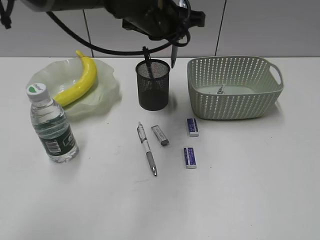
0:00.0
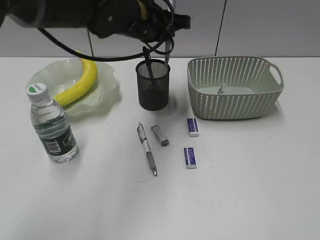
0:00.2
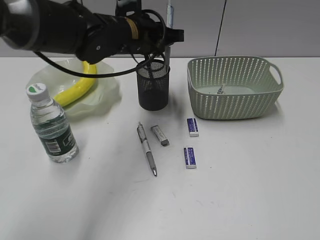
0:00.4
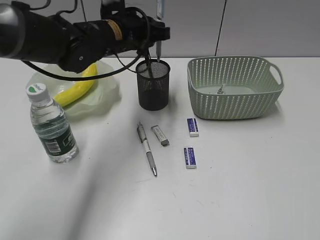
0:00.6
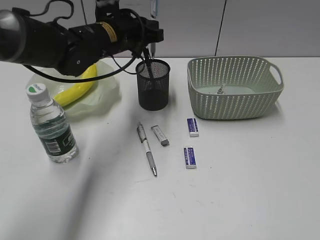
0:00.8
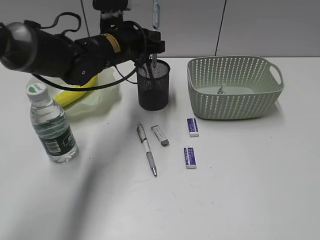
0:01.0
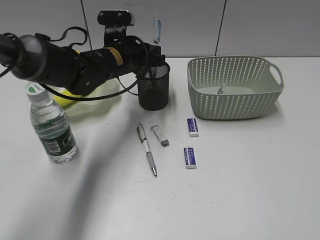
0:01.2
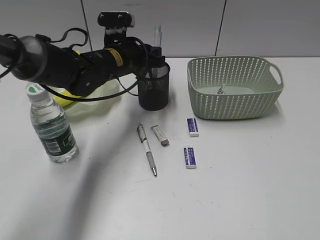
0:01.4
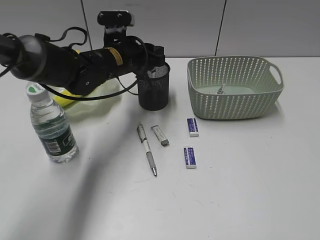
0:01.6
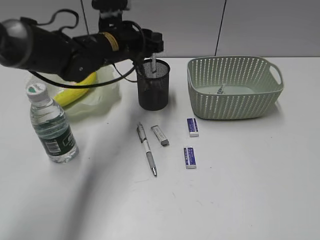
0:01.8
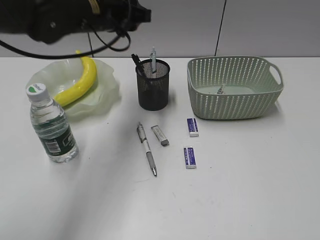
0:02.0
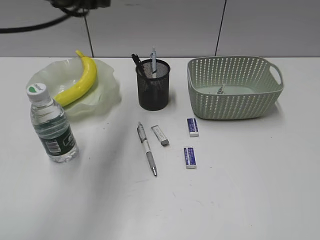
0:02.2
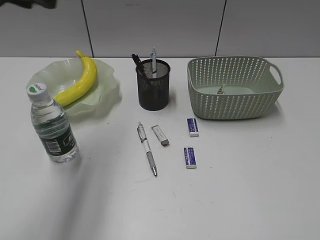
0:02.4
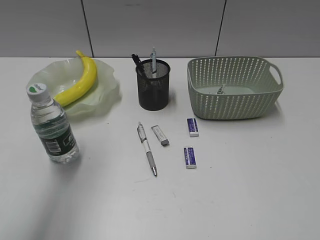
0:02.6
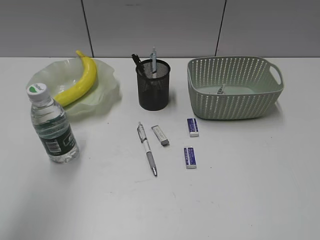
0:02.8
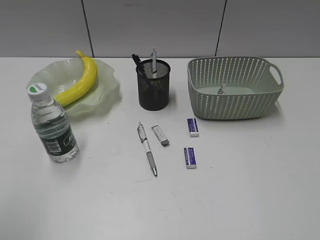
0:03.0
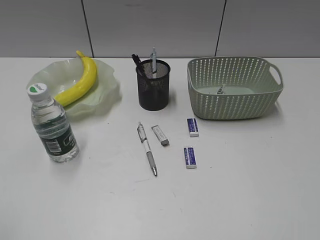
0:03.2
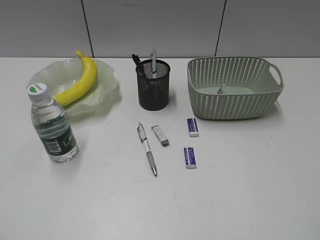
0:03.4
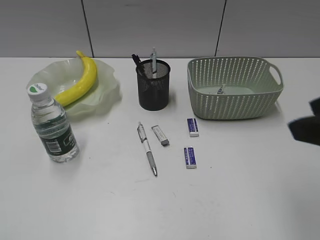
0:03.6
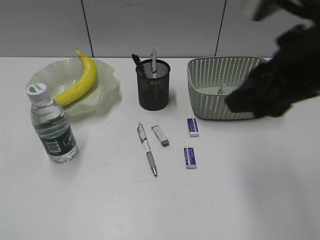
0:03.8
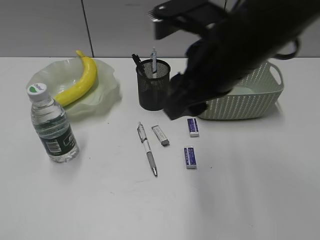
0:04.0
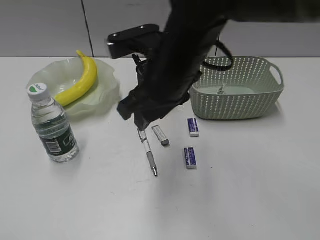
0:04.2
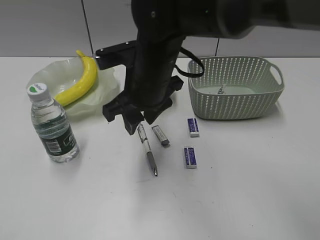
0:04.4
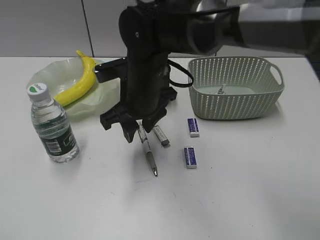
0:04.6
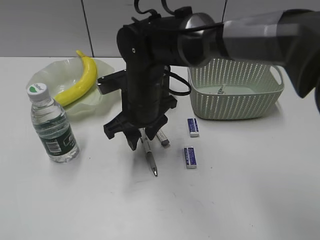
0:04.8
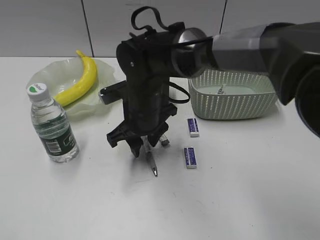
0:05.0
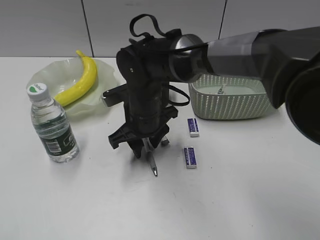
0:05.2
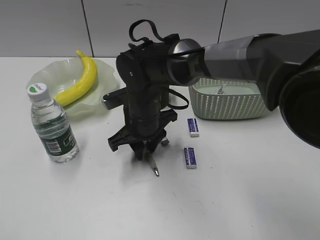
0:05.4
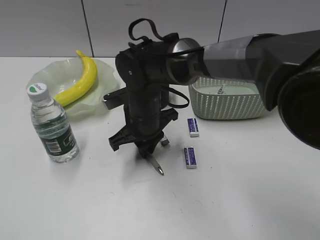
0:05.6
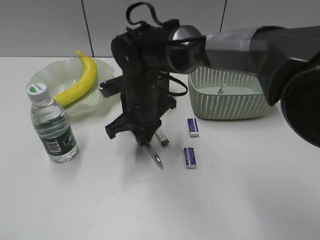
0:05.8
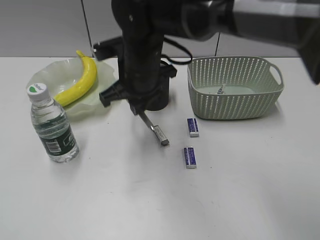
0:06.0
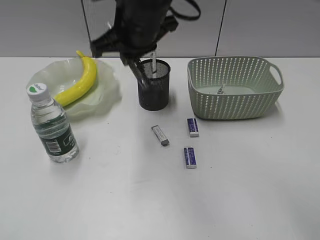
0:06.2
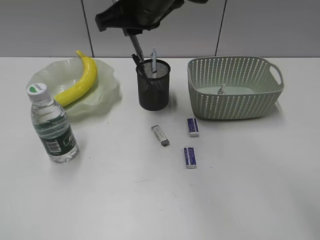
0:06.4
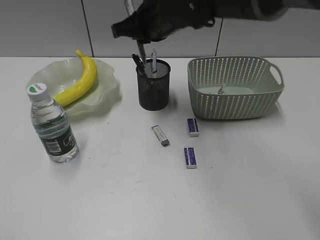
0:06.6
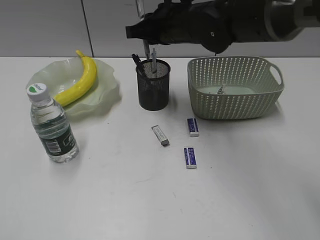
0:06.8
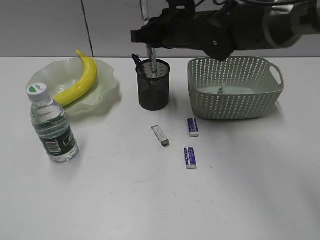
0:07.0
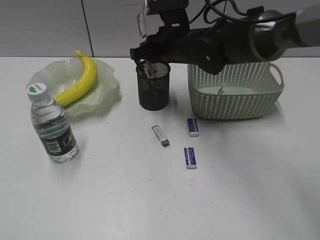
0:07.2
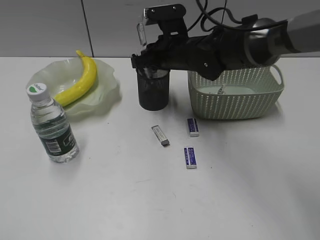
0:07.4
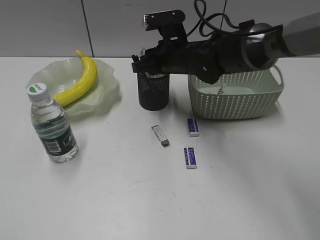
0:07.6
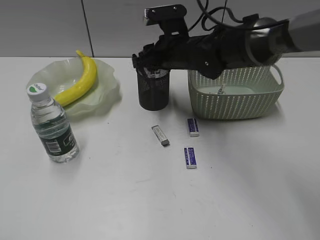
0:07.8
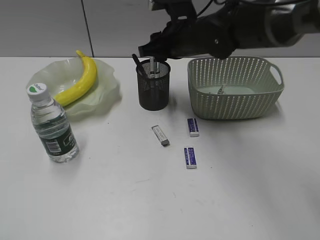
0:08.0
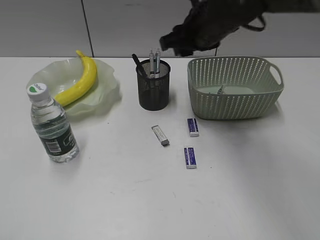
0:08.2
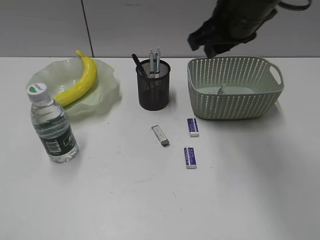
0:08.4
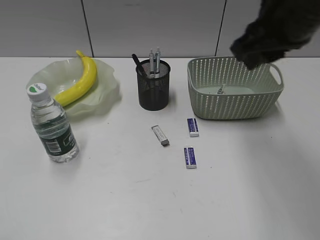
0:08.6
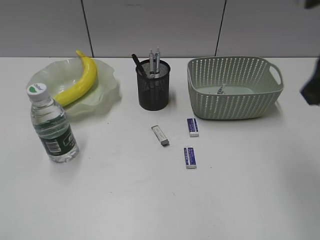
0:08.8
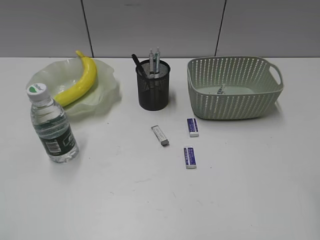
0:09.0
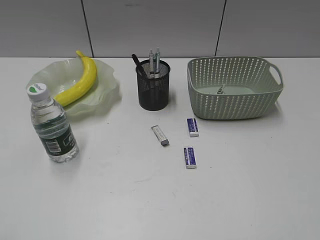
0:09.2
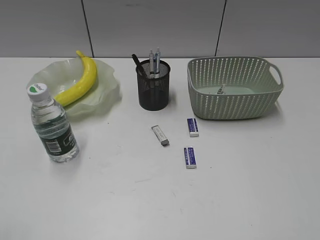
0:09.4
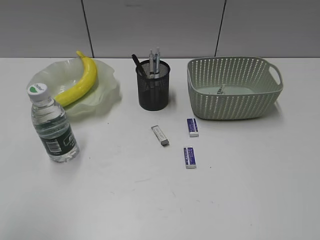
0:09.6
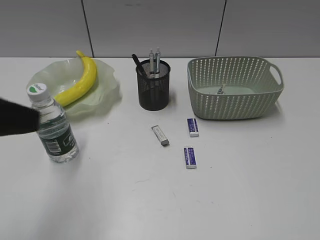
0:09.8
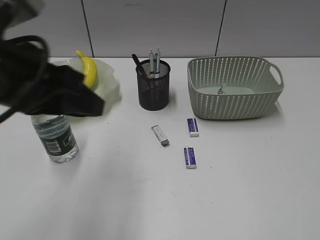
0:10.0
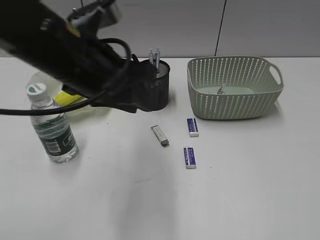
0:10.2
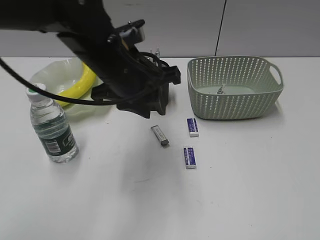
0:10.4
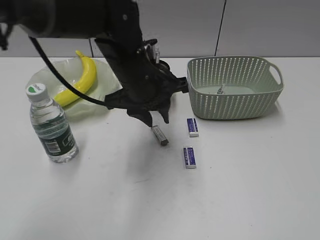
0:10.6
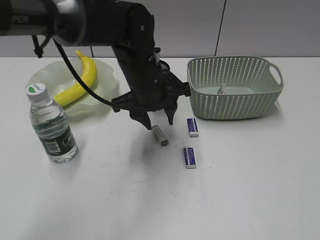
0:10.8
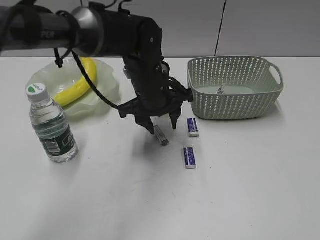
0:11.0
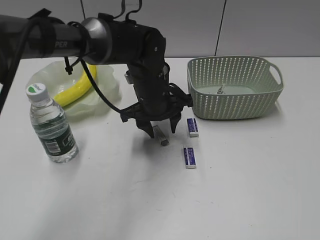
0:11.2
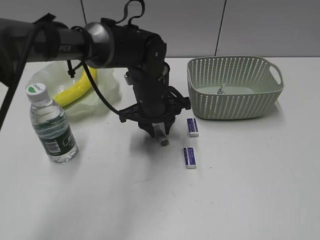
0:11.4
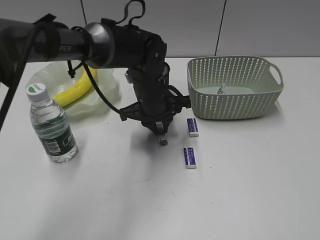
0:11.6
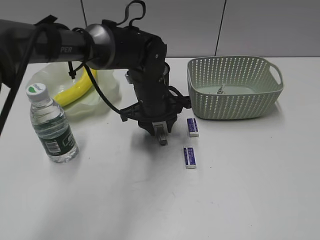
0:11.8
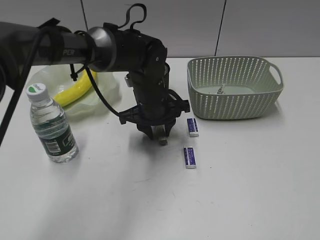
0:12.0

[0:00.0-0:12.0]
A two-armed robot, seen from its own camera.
Step, 0:00.0 to 0:01.6: Place the blue pen in pen holder with left gripper.
Step, 0:01.8 to 0:05.6: Grasp the gray pen with right gripper.
Step, 0:05.8 to 0:07.8: Place the gray pen in pen holder with right gripper.
0:00.0 to 0:01.6: The left gripper shifts about 15 cm downward and to the left, and opens up.
0:01.6 to 0:03.0: The left gripper travels backward, to the left and upward by some 40 cm.
0:03.0 to 0:04.4: The left gripper travels backward and downward by some 10 cm. Meanwhile the right gripper shifts some 40 cm to the left and forward.
0:04.4 to 0:06.0: The right gripper travels downward and back again, roughly 10 cm each way, and closes up.
0:06.0 to 0:07.6: The right gripper goes approximately 10 cm forward and to the right, and goes upward and returns, some 10 cm each way.
0:07.6 to 0:09.0: The right gripper moves backward, to the right and upward, some 40 cm.
0:09.0 to 0:10.4: The right gripper heads backward and to the right, covering approximately 15 cm; the left gripper heads forward and to the right, covering about 40 cm.
0:10.4 to 0:12.0: The left gripper shifts approximately 15 cm downward and forward.

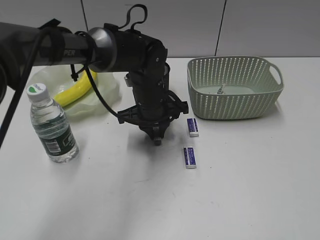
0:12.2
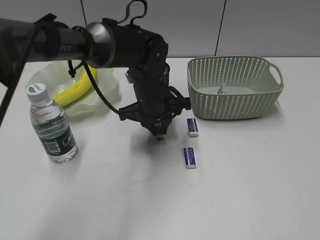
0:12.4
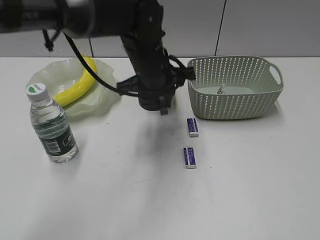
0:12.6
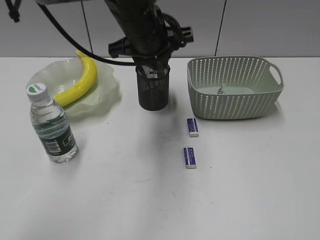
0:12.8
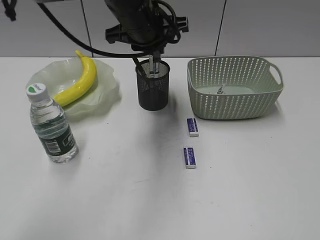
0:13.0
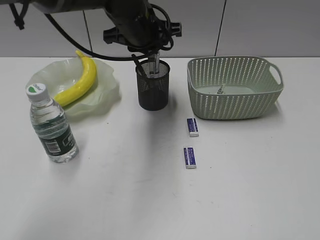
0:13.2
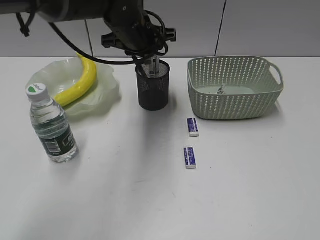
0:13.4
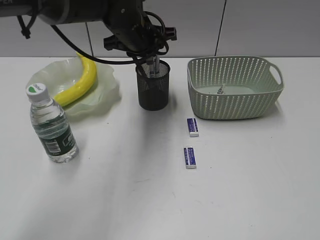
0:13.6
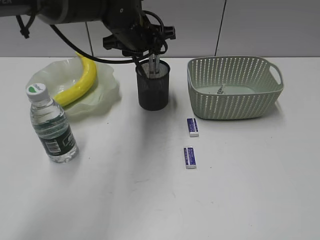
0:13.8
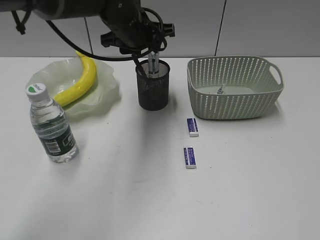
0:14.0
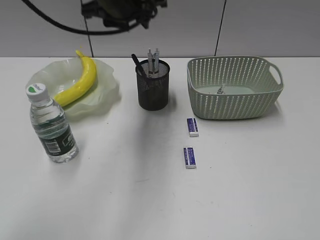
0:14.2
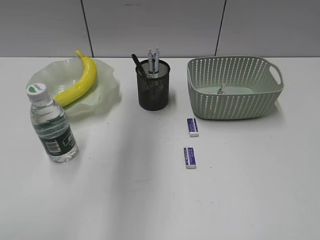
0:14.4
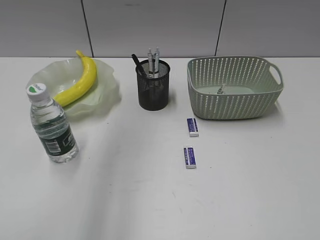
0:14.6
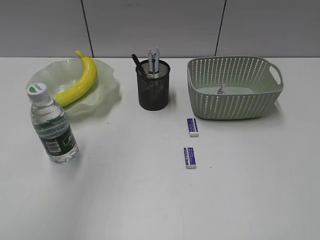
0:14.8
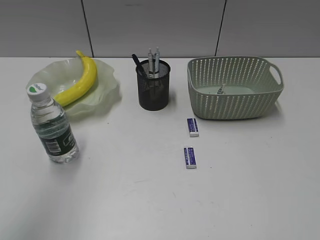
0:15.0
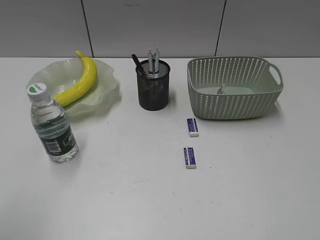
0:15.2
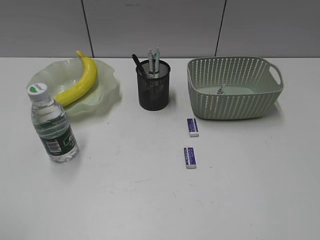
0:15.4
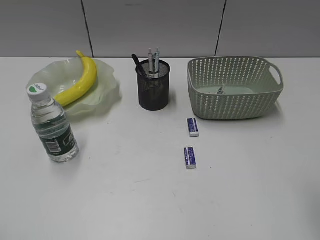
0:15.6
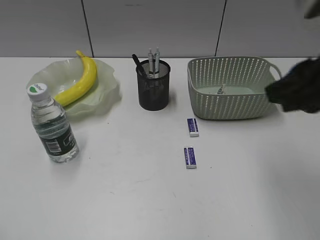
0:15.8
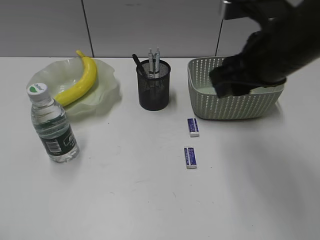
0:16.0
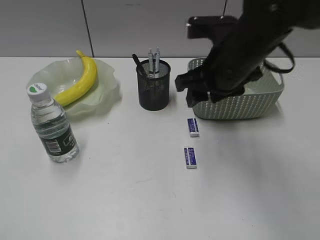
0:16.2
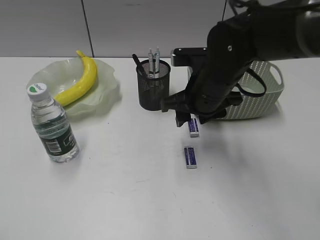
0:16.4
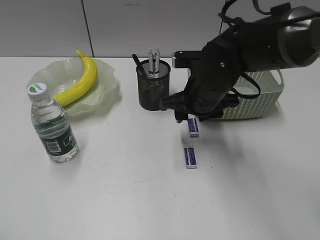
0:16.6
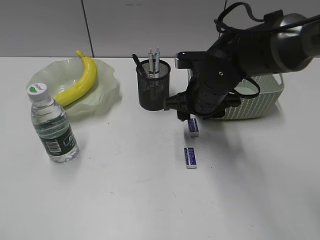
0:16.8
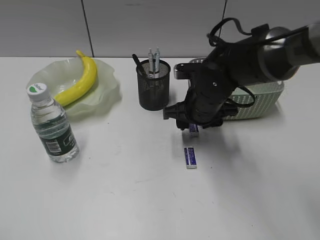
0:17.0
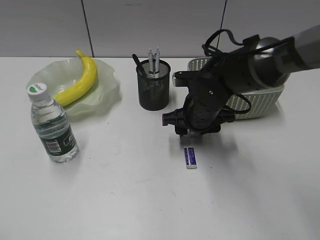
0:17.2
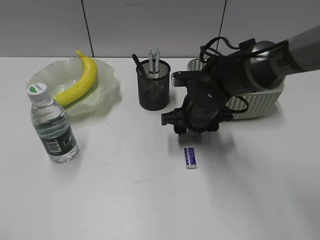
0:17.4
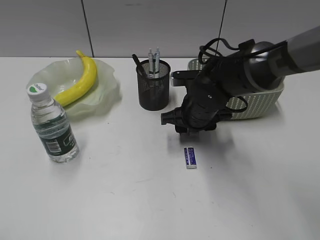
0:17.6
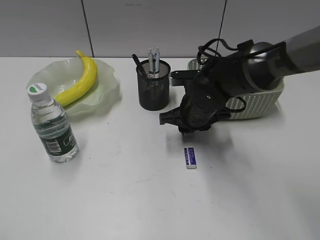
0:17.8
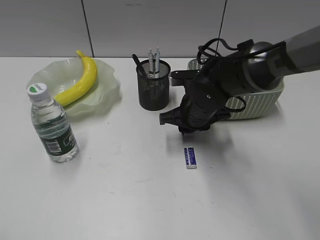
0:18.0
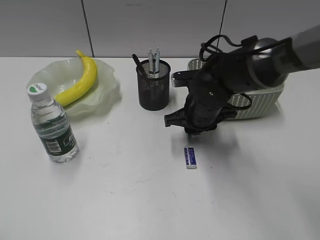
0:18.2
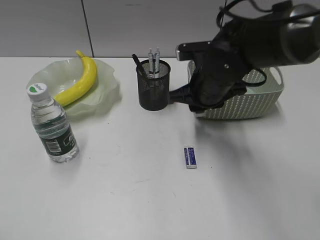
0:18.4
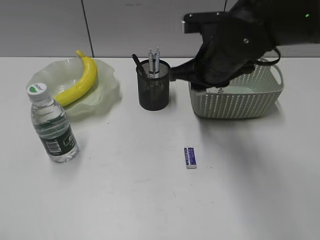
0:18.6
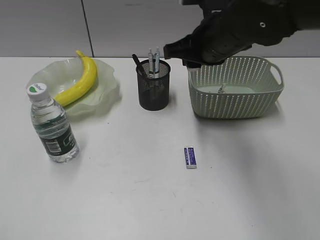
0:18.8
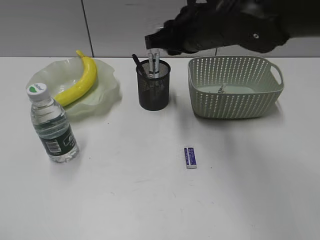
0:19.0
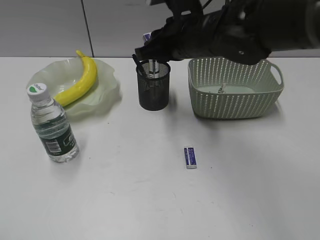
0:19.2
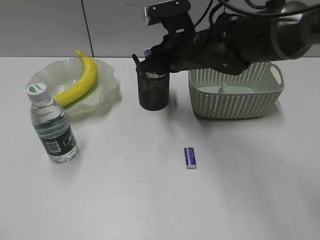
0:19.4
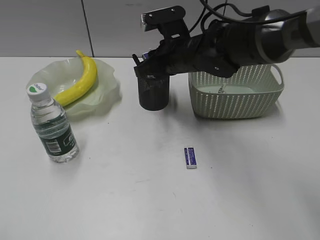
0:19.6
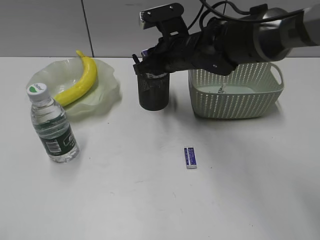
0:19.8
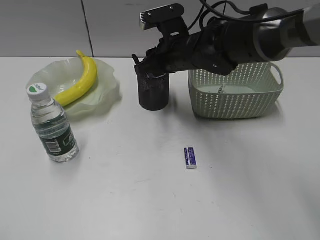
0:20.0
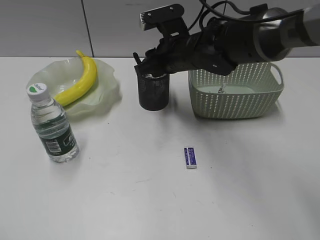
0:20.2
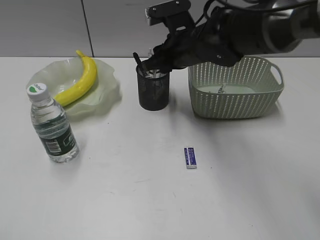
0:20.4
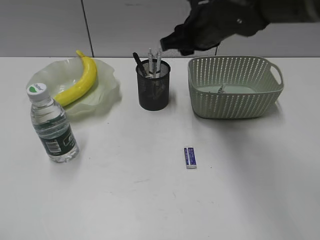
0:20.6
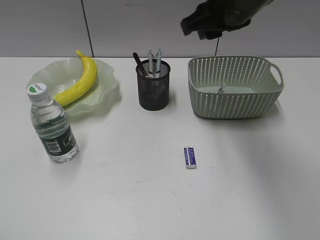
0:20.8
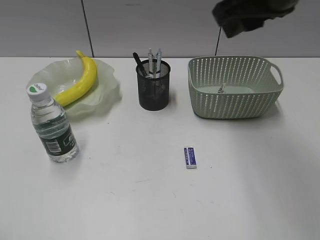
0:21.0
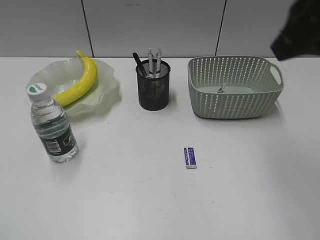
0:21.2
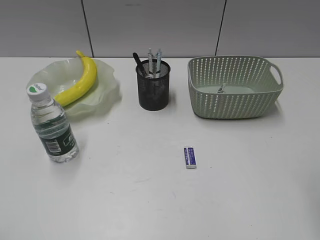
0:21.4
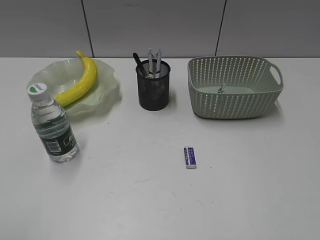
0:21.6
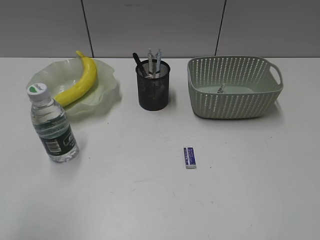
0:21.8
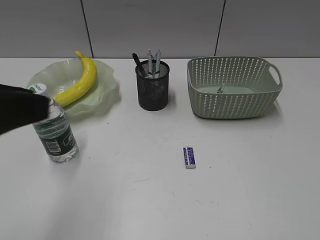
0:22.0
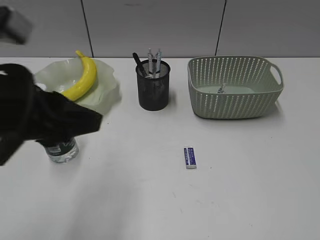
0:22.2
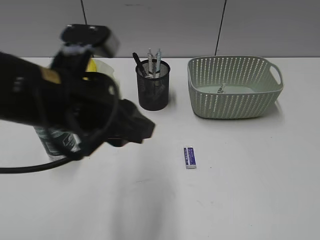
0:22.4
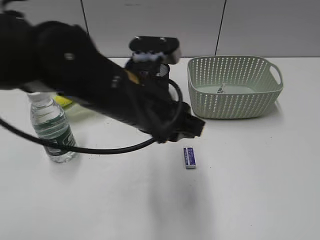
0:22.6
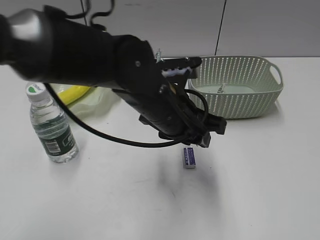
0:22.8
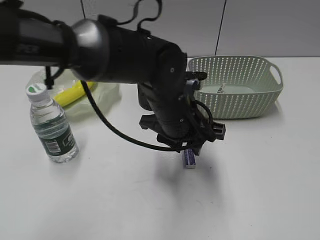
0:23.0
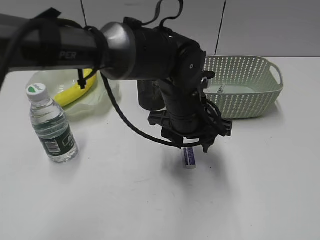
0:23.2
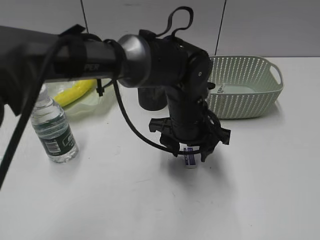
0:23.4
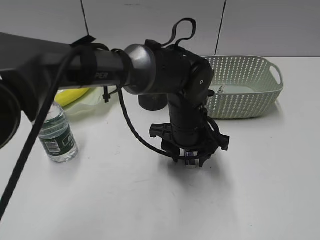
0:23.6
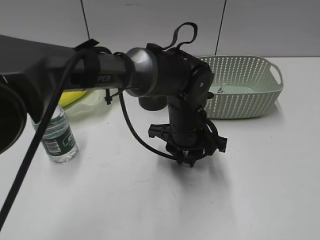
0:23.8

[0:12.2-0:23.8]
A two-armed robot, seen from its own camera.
Step, 0:12.4 to 0:13.8: Place the eraser in pen holder with left gripper.
Step, 0:14.0 to 0:18.0: Grasp the eraser with right gripper.
Step, 0:18.2 to 0:20.0: Place the eraser in pen holder with right gripper.
0:12.2 to 0:13.6: The left gripper is displaced upward and forward by approximately 10 cm.
0:13.6 to 0:15.0: The left gripper goes roughly 40 cm backward, upward and to the left, and opens.
0:15.0 to 0:16.6: The right gripper goes roughly 40 cm forward and to the left, and opens its fingers. Meanwhile the left gripper travels downward, backward and to the left by some 20 cm.
0:16.6 to 0:18.0: The right gripper travels downward by about 5 cm, and closes its fingers.
0:18.0 to 0:19.4: The right gripper is displaced upward by about 10 cm.
0:19.4 to 0:21.0: The right gripper is displaced upward, backward and to the right by roughly 20 cm.
0:21.0 to 0:22.4: The right gripper travels backward and to the right by some 35 cm, while the left gripper shifts approximately 30 cm to the right and forward.
0:22.4 to 0:23.8: The left gripper goes some 25 cm to the right, downward and forward, and opens, then closes again.
